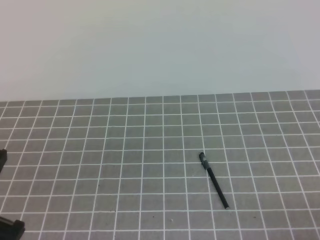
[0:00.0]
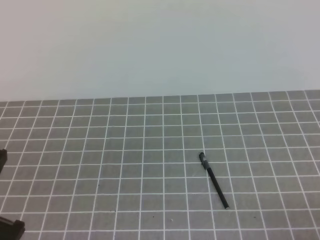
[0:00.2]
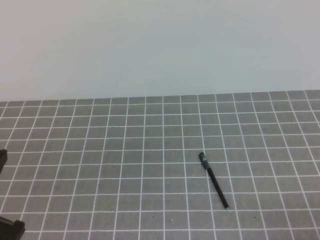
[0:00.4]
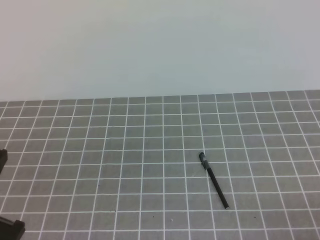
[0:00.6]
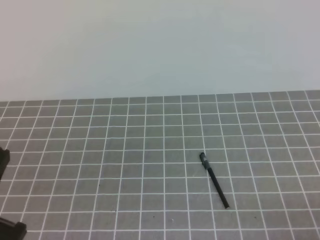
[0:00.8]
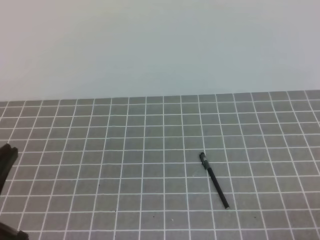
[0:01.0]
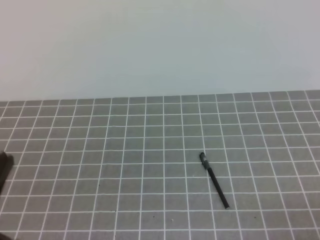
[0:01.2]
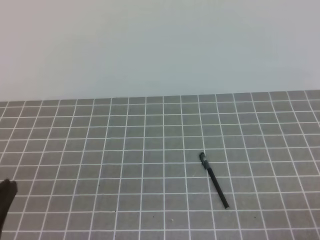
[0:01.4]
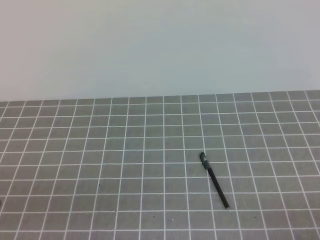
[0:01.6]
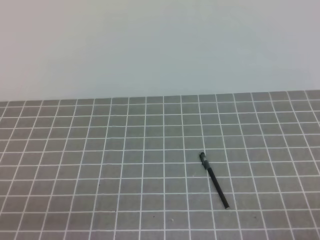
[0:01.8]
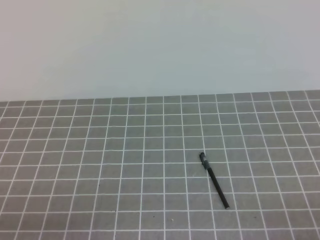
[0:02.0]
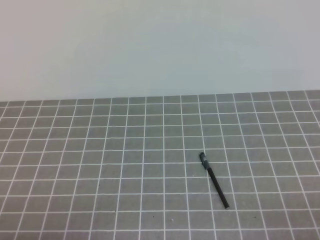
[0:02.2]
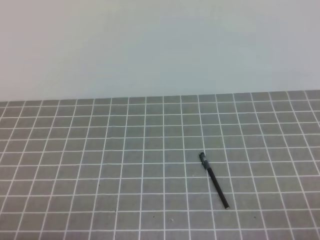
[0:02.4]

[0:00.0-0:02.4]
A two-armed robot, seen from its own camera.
Task of the whole recording: on the grey tablecloth, hold the pen cap in one hand and the pen in the other, then cover the pen cap.
Step, 0:00.0 to 0:02.4: Put the cap on the pen.
0:00.0 to 0:01.2: There are only small adjustments of the grippers.
